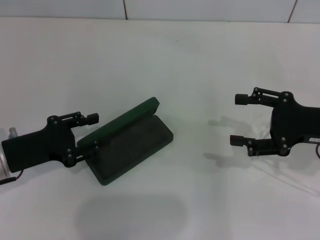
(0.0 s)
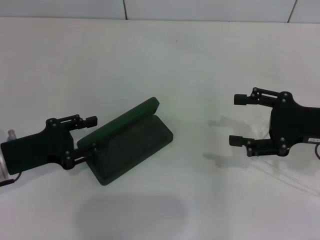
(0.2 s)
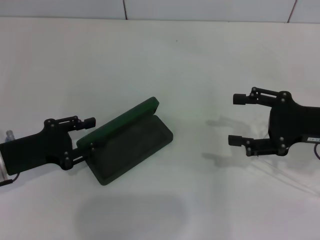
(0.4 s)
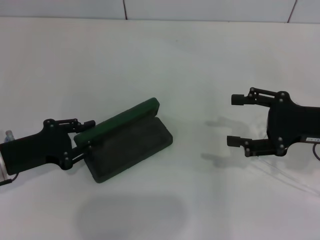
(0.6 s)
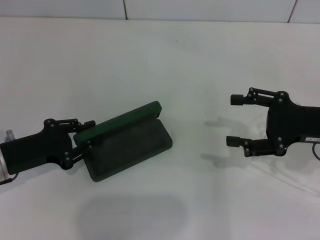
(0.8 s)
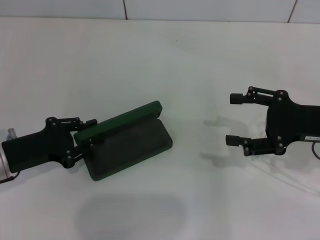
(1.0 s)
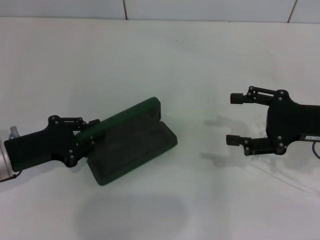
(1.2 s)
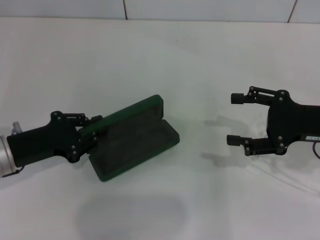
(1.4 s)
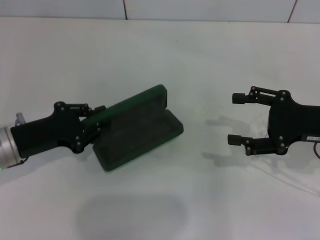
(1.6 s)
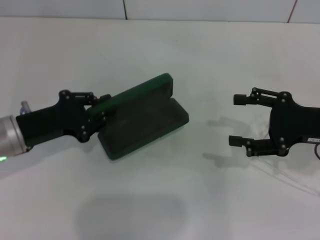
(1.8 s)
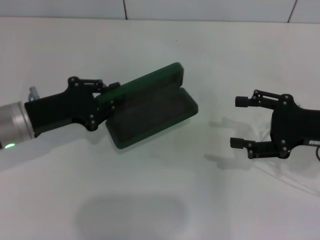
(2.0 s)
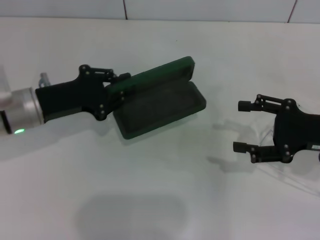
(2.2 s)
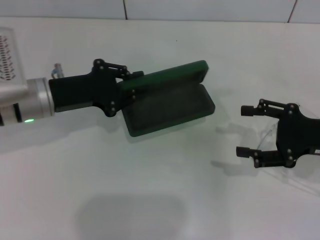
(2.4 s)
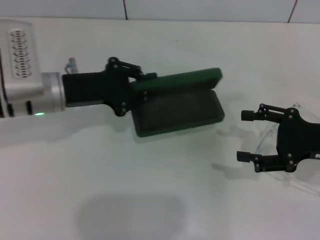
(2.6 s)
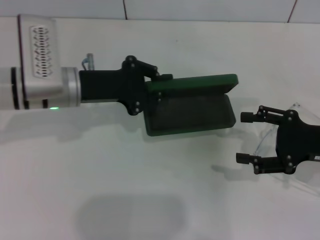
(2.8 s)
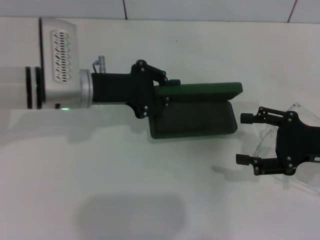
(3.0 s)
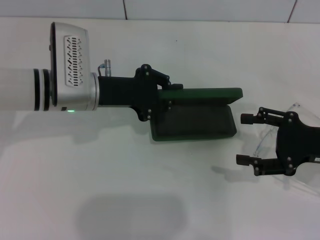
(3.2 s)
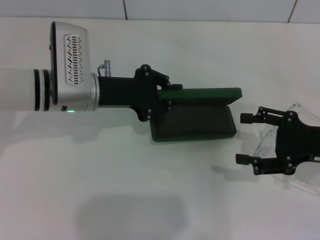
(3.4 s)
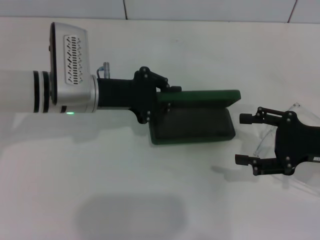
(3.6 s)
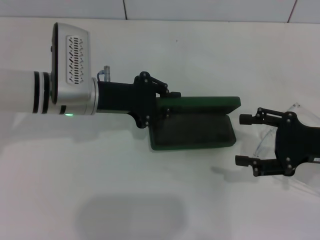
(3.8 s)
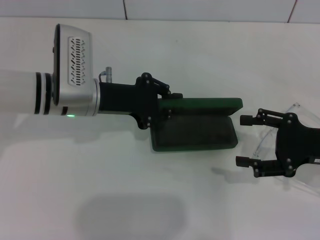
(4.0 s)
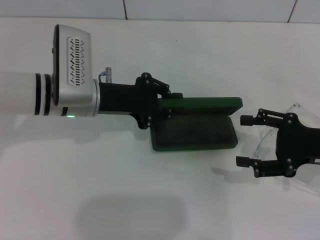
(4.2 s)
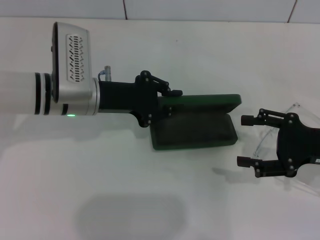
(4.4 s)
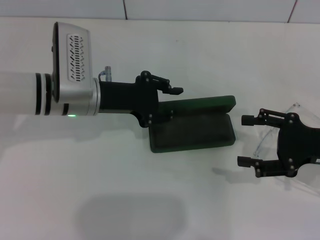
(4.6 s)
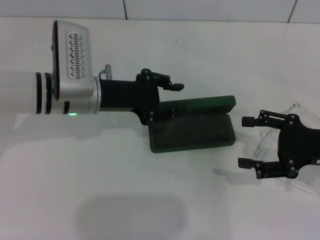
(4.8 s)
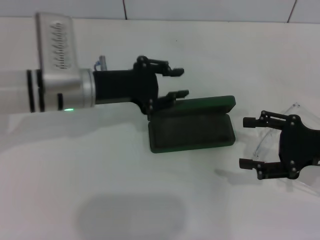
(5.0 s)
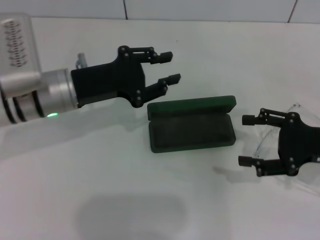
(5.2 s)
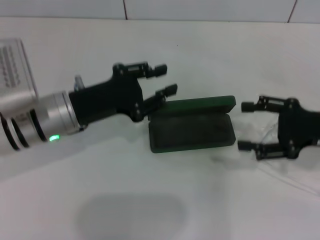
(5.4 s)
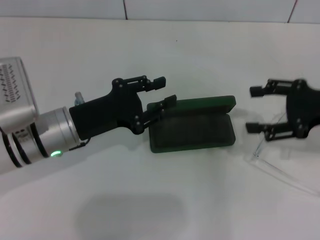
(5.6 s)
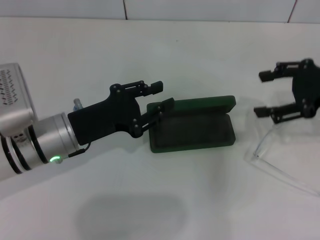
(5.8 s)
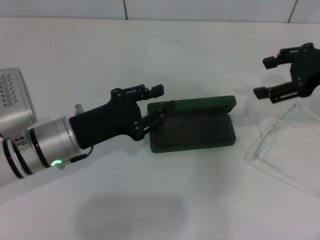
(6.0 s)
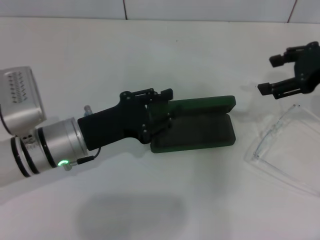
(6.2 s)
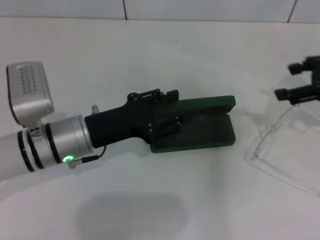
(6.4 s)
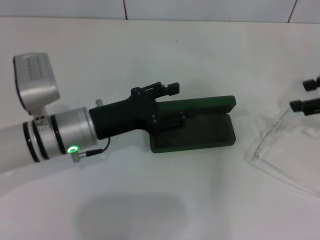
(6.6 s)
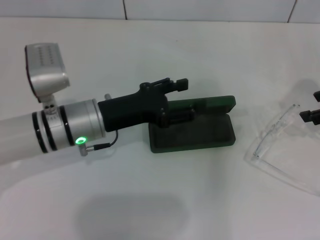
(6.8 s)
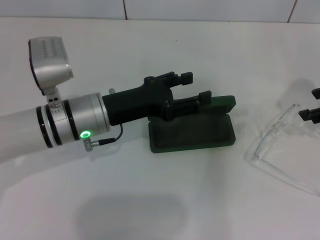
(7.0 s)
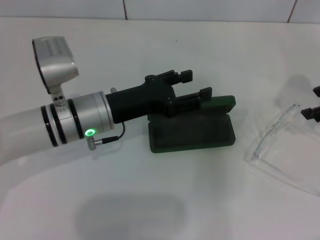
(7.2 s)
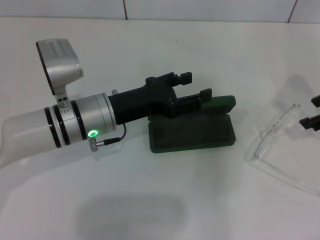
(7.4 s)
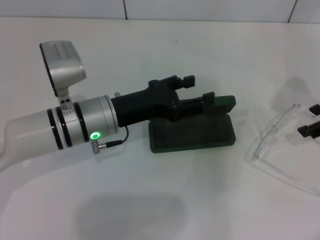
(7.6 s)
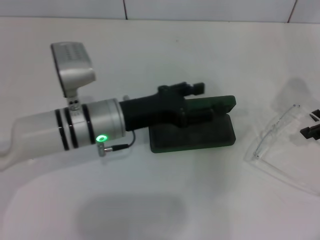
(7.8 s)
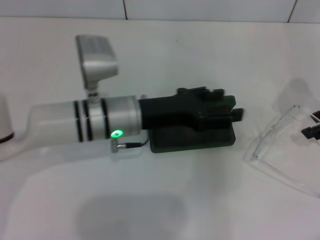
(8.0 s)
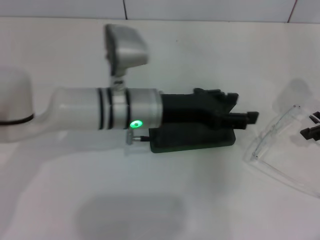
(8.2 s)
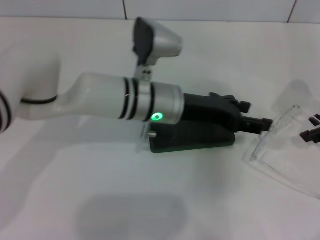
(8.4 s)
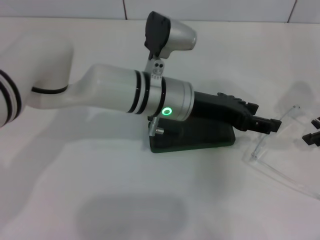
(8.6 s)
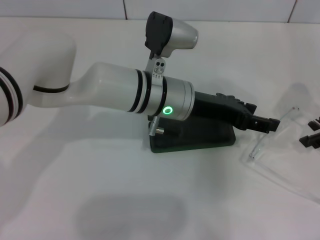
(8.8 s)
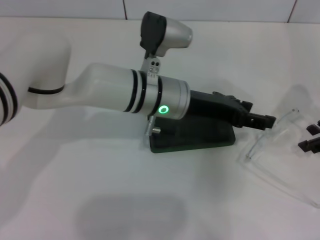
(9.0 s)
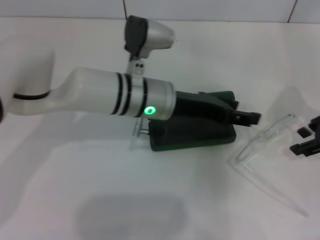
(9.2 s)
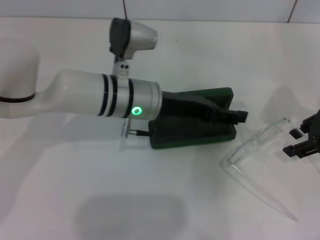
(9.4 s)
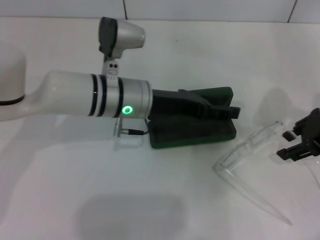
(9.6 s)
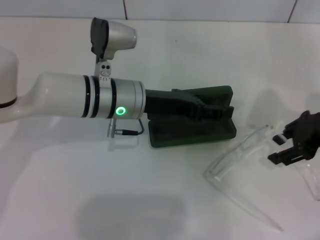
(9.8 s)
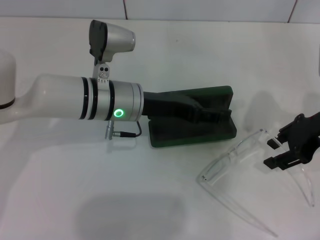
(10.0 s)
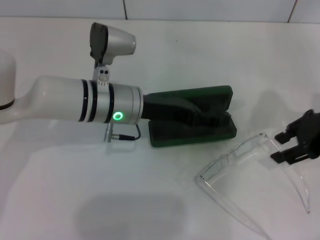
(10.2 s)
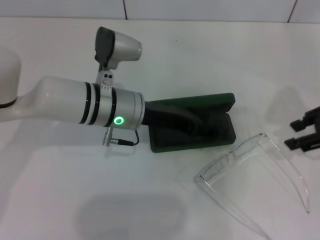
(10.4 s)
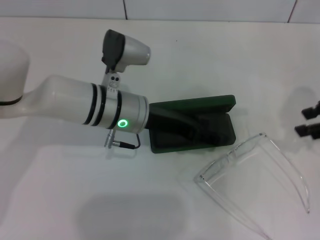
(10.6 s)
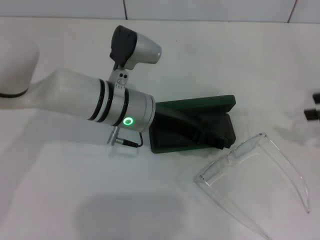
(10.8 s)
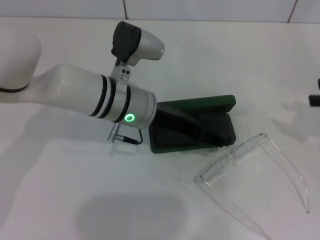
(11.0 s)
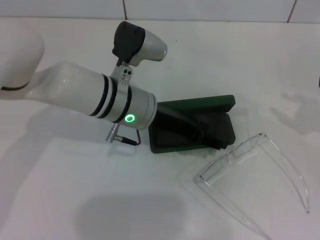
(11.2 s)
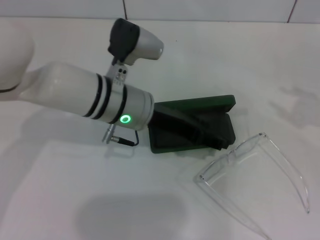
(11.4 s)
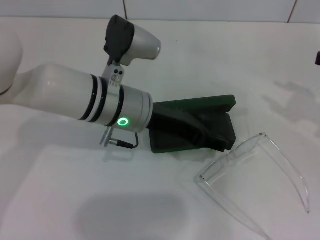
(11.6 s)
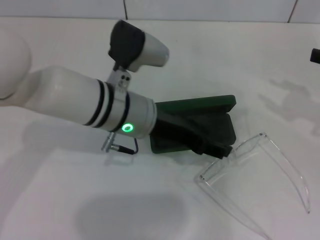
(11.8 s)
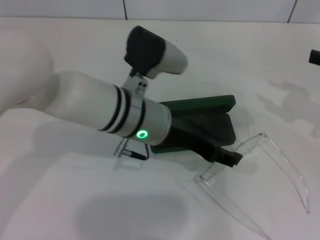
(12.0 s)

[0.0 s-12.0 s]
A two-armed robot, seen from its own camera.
Step, 0.8 to 4.4 s: Place the glasses case in the center of the table with your left hand.
0.0 to 1.6 s: The left gripper closes its fingers.
1.6 to 3.0 s: The left gripper goes approximately 15 cm to the right and forward.
3.0 to 4.4 s: There are only small adjustments of the grippers.
4.4 to 6.0 s: The right gripper shifts about 15 cm upward and forward, while the left gripper goes roughly 10 cm backward.
6.0 to 7.6 s: The left gripper travels to the right by about 5 cm.
7.6 to 9.0 s: The left gripper is displaced to the right by about 10 cm.
9.0 to 10.4 s: The left gripper travels to the left by roughly 5 cm.
10.4 to 12.0 s: The right gripper goes some 5 cm to the right. Meanwhile the left gripper shifts by about 5 cm.

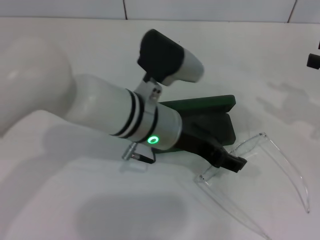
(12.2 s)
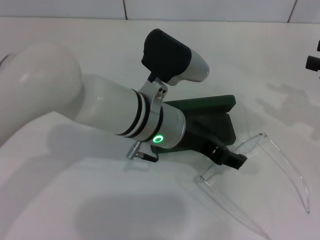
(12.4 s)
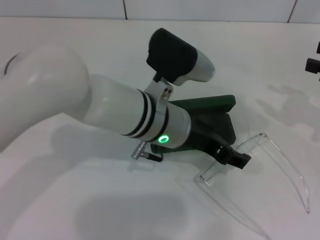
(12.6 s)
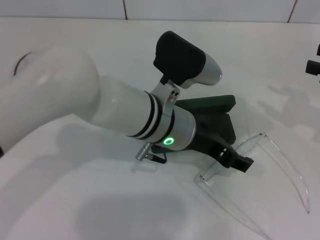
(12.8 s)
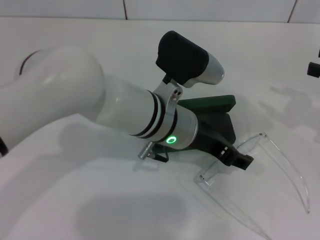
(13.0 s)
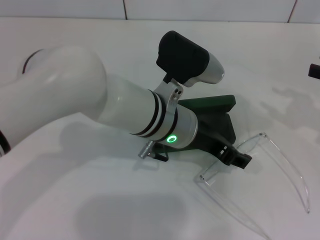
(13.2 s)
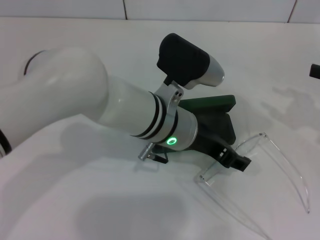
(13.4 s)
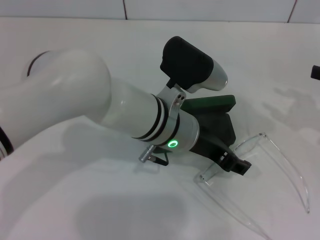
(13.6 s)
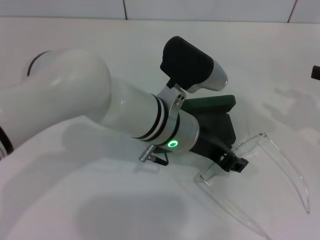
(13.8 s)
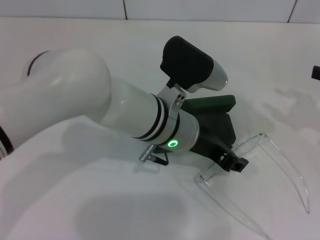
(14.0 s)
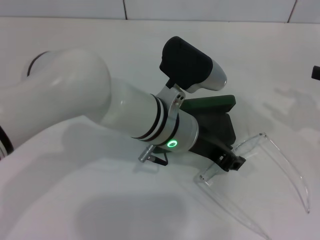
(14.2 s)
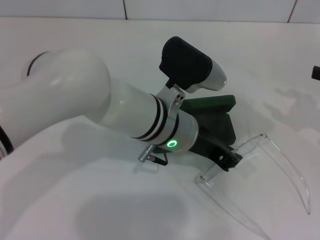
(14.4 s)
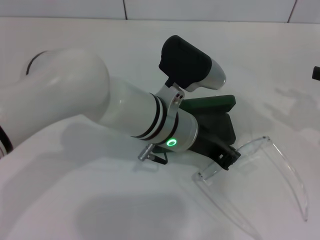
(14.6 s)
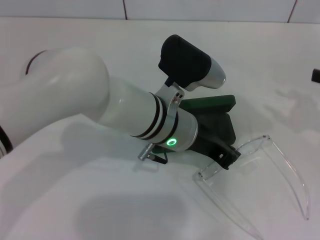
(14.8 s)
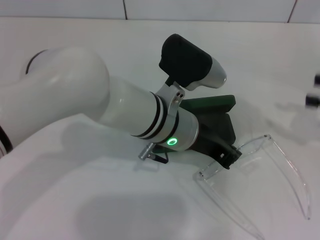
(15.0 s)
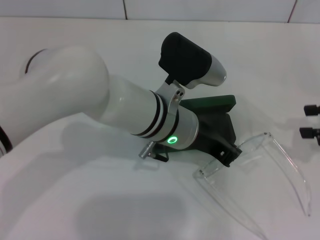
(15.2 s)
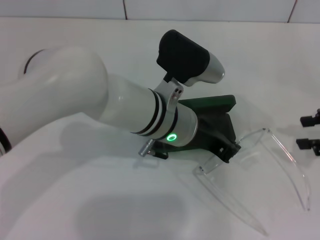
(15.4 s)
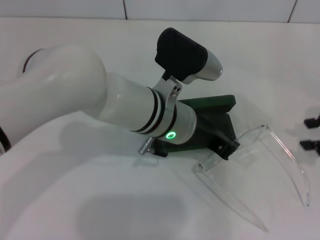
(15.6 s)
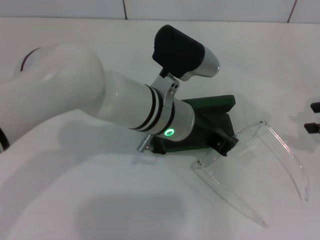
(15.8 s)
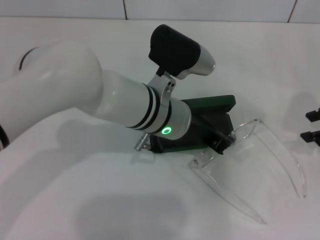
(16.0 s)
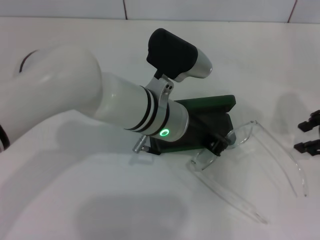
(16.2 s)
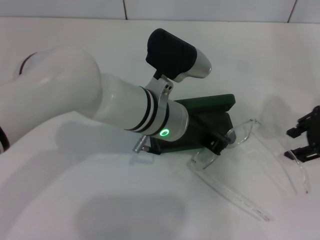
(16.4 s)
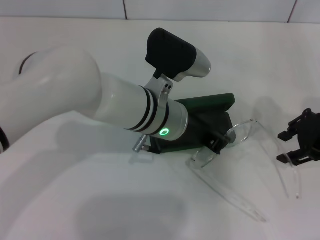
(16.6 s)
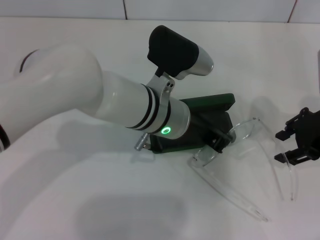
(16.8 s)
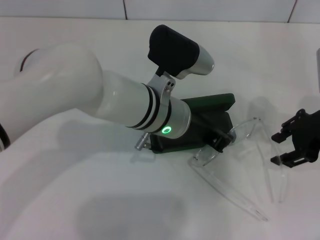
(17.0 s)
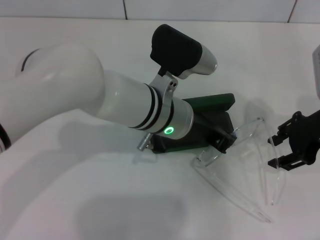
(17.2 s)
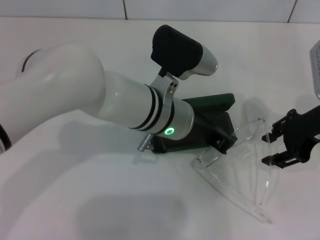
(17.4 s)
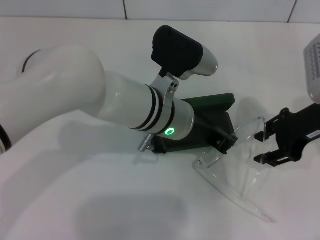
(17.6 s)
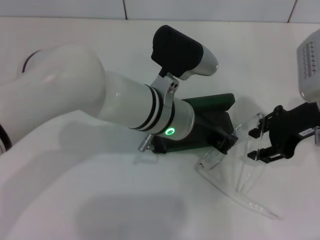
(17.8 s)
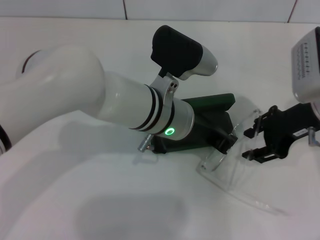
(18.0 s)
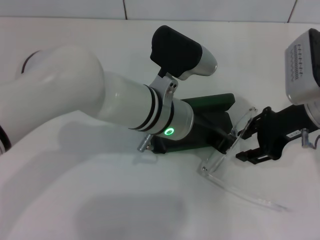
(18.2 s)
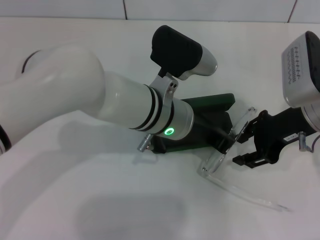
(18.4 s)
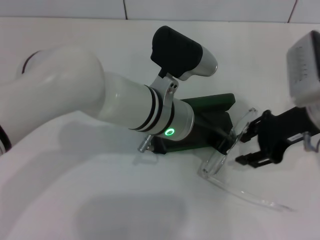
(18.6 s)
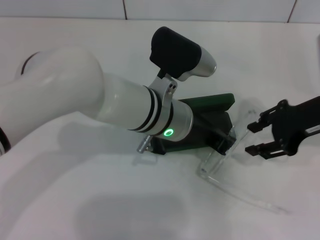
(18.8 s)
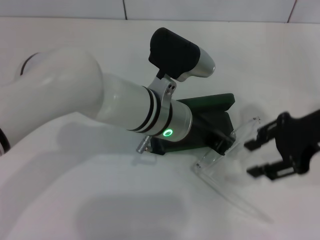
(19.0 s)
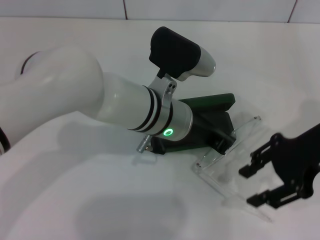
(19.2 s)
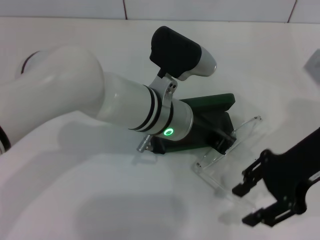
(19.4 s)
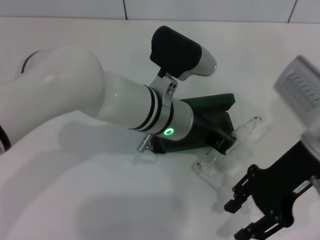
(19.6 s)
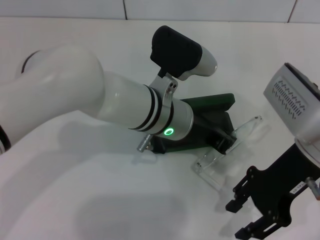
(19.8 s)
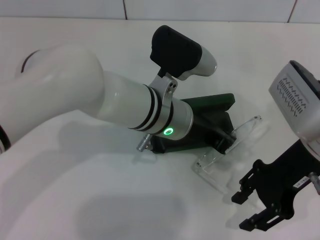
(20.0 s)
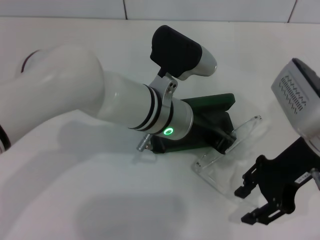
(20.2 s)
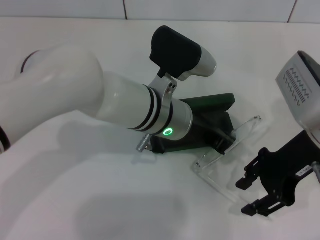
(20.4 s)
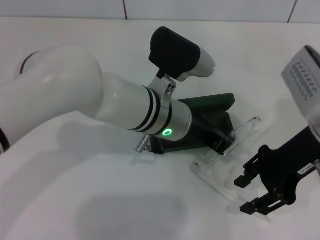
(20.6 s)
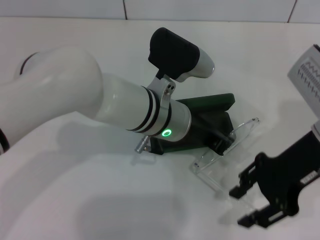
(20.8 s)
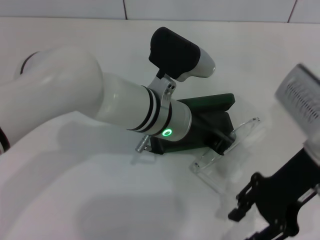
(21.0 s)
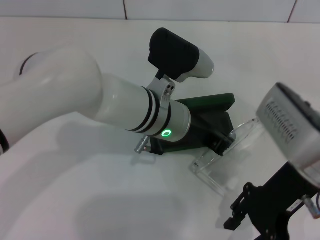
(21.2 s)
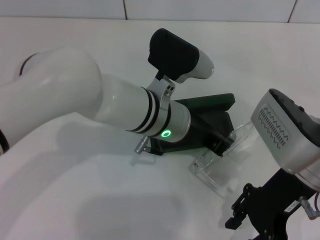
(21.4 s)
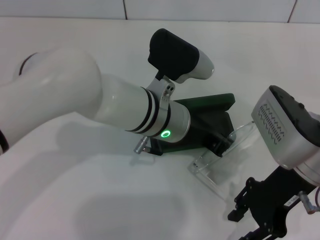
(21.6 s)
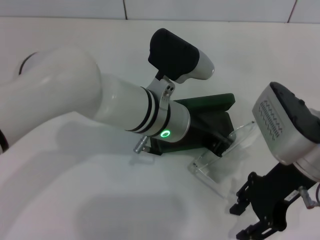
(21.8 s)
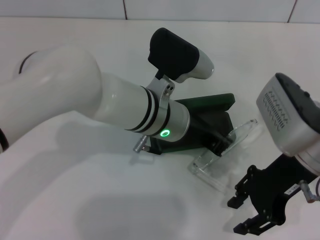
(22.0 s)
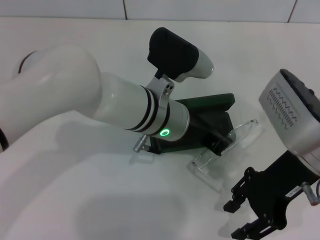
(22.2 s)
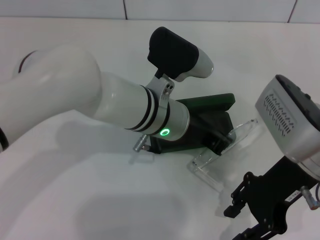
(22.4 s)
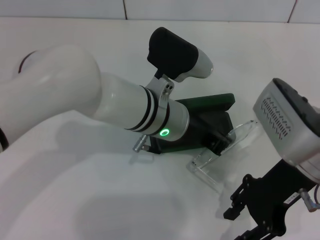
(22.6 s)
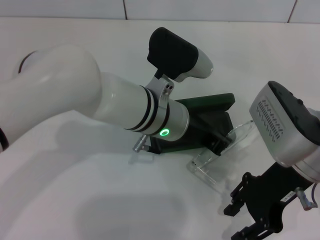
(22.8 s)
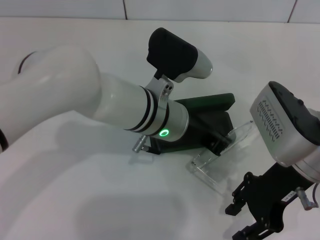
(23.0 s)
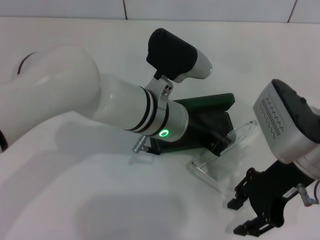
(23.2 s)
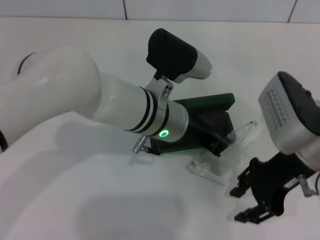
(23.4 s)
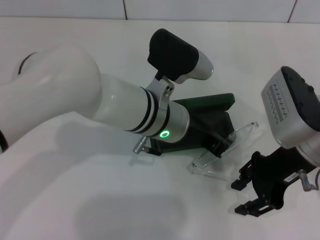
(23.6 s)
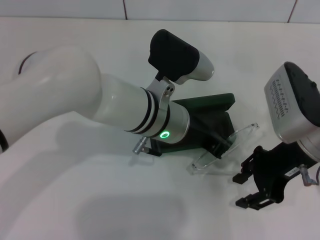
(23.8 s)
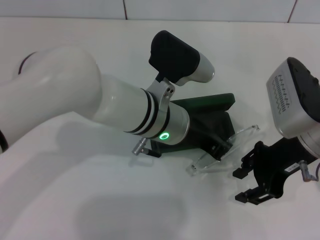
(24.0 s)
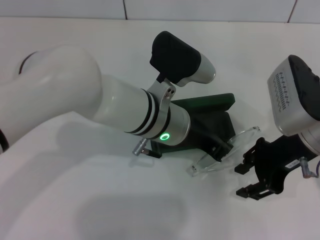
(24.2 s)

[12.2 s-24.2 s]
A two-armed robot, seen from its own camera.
Step, 12.2 to 15.0 s: Grab the frame with your right hand.
12.2 to 13.8 s: The grippers stay close to where they were, moving slightly.
13.8 to 15.2 s: The left gripper closes.
15.2 to 16.6 s: The right gripper heads to the left, covering about 10 cm.
16.6 to 18.2 s: The grippers stay close to where they were, moving slightly.
18.2 to 19.8 s: The right gripper ends up approximately 5 cm from where it was.
19.8 to 24.2 s: The grippers make only small movements.
